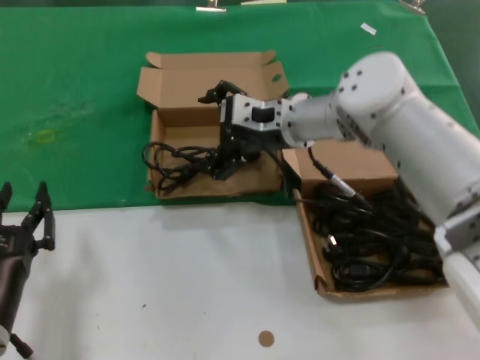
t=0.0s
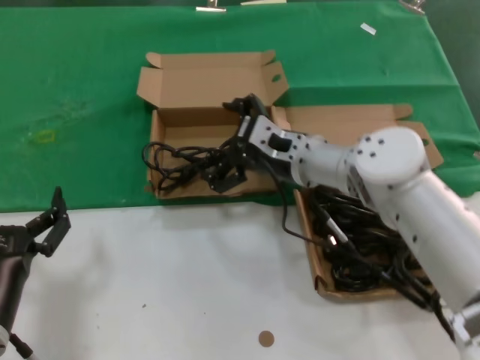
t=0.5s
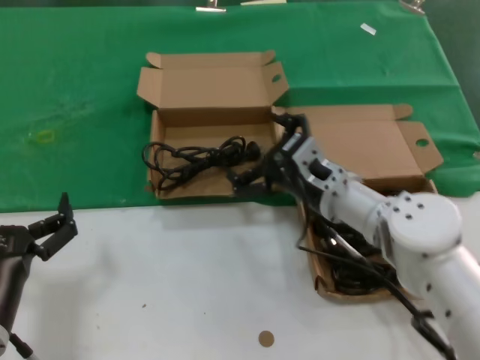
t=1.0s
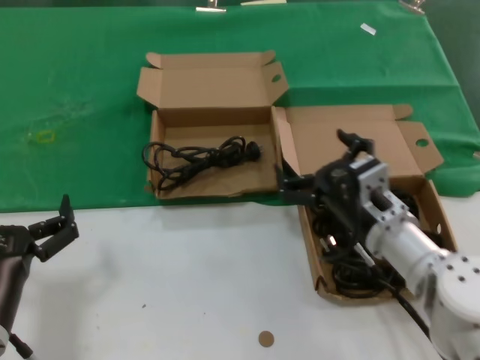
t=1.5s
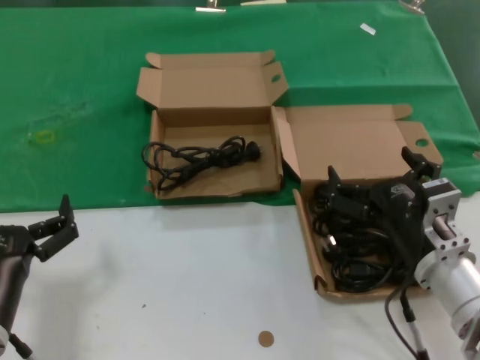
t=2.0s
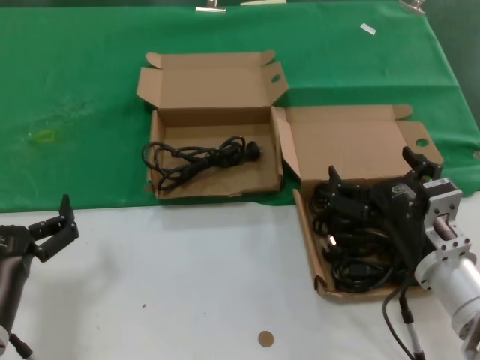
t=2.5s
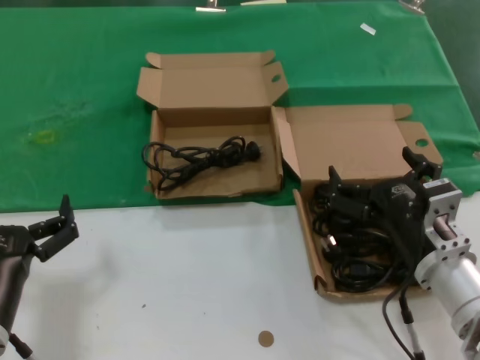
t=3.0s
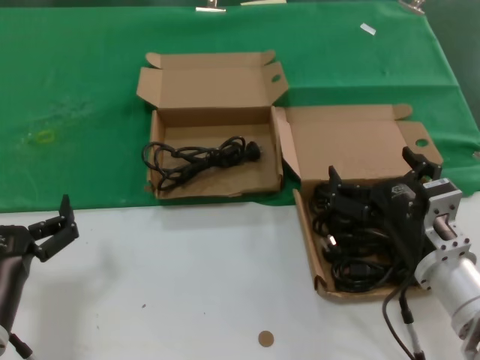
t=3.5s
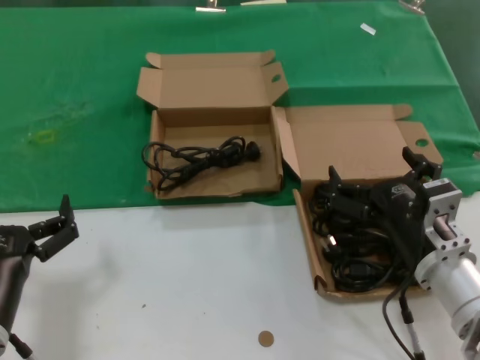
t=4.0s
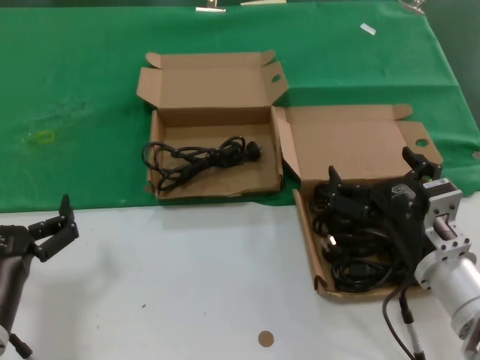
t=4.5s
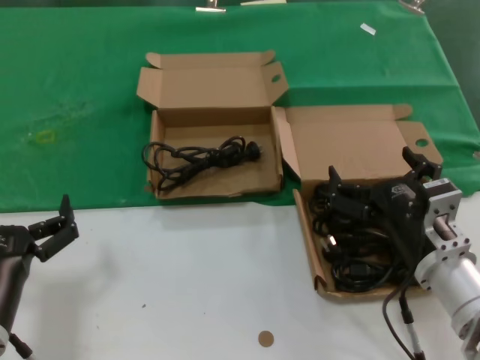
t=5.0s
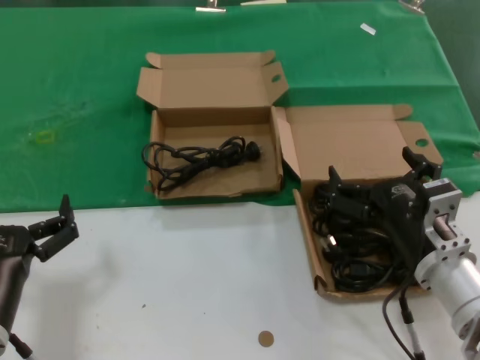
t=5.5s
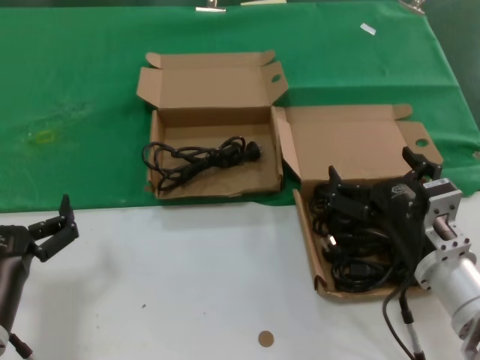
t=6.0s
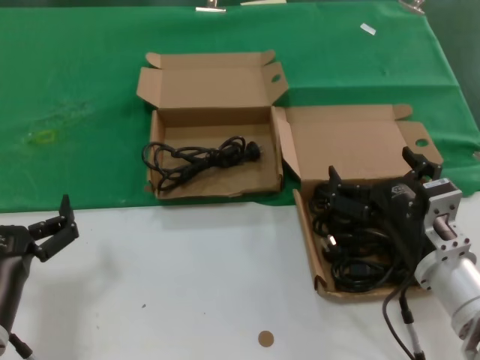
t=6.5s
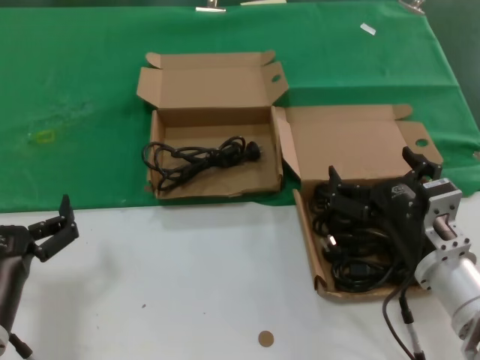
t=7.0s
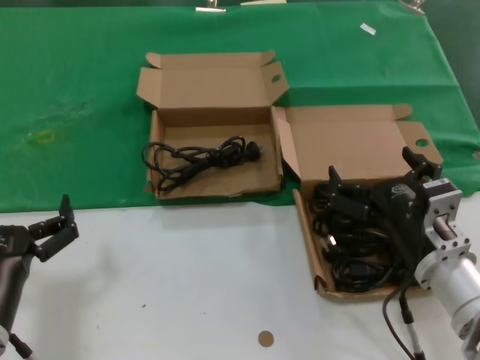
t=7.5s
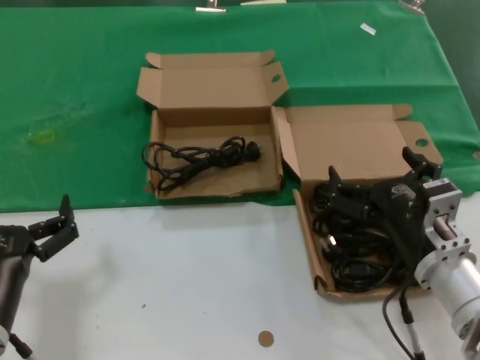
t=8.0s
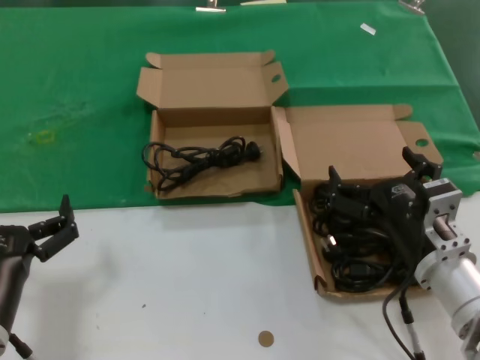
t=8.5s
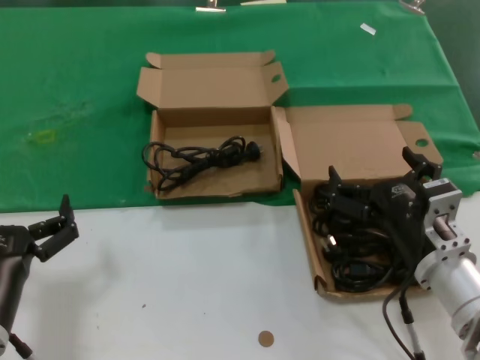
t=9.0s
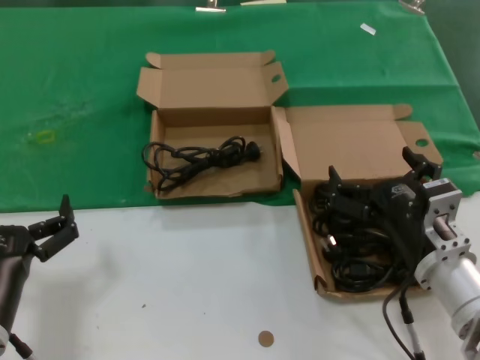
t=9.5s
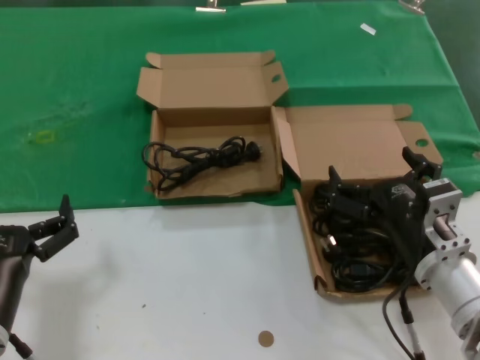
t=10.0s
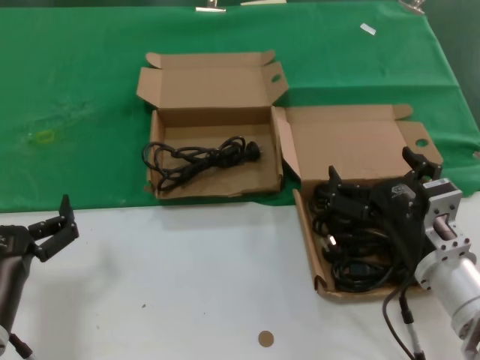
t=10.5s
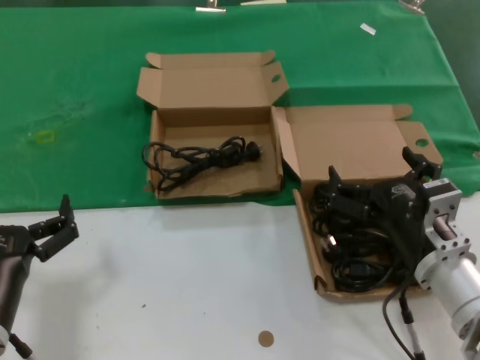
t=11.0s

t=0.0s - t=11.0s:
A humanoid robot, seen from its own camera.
Task of the whole recording: take the parts from the box containing them and put them into an empty box.
t=0.0s - t=2.0s: The right hand heads backward, downward and to the right, covering approximately 30 cm.
t=2.0s - t=11.0s: Neither hand changes place.

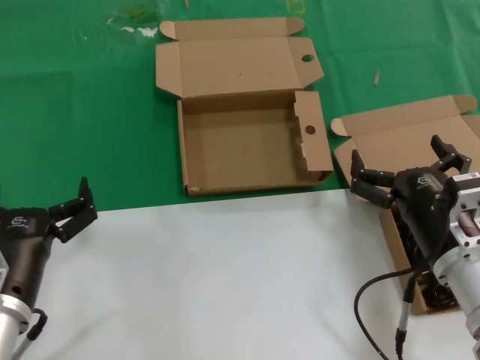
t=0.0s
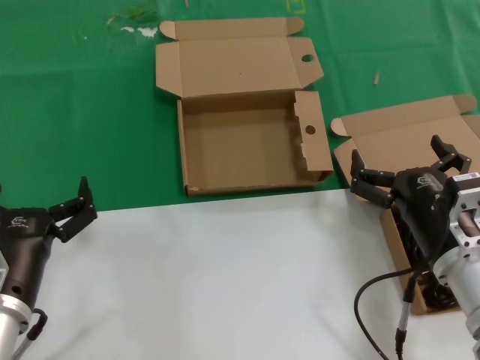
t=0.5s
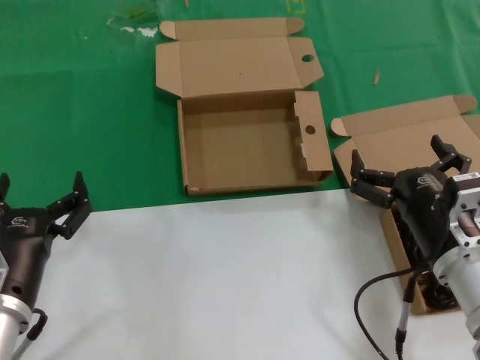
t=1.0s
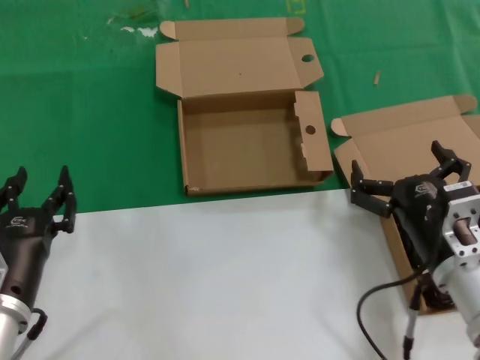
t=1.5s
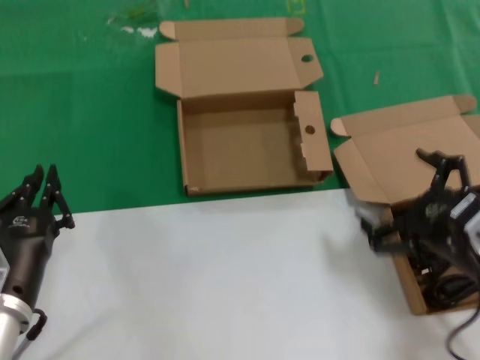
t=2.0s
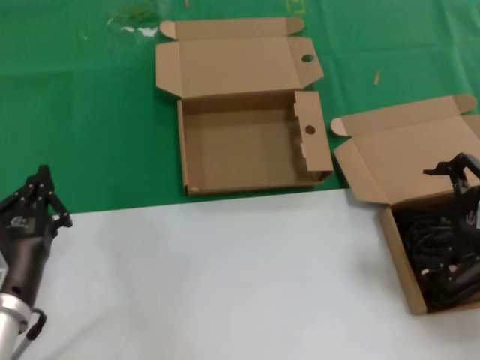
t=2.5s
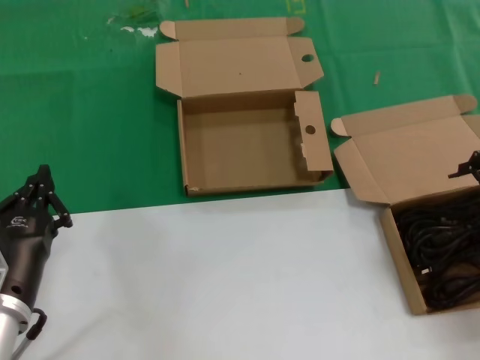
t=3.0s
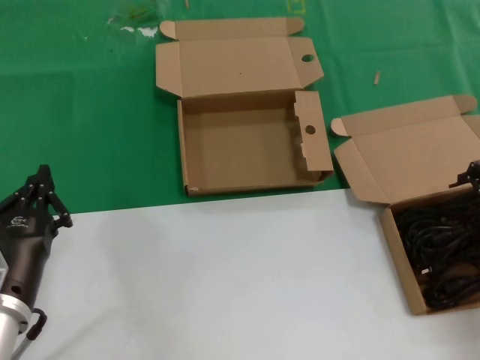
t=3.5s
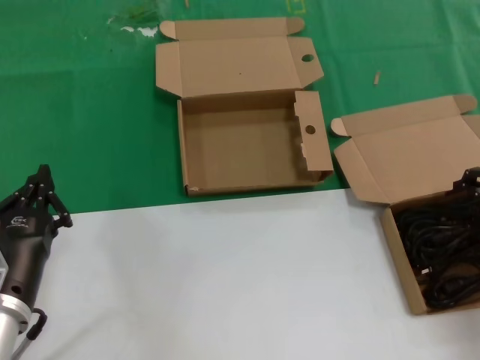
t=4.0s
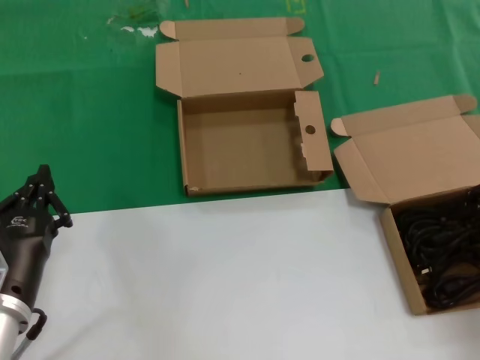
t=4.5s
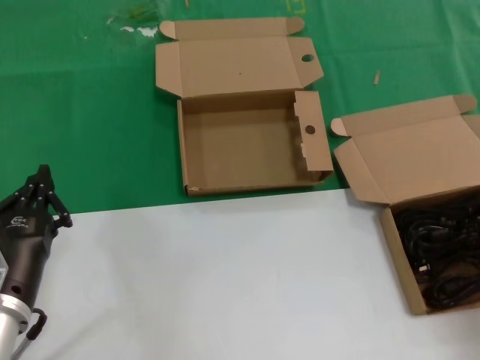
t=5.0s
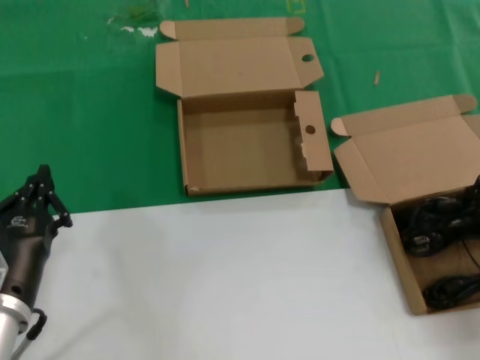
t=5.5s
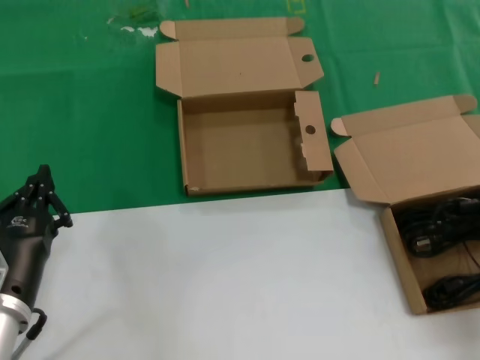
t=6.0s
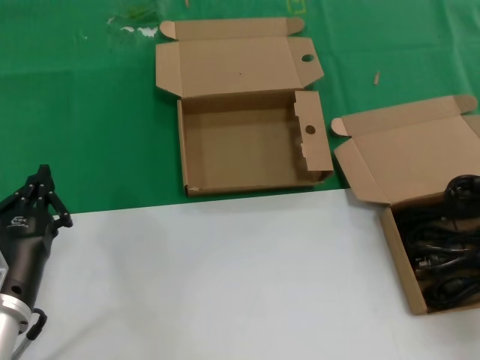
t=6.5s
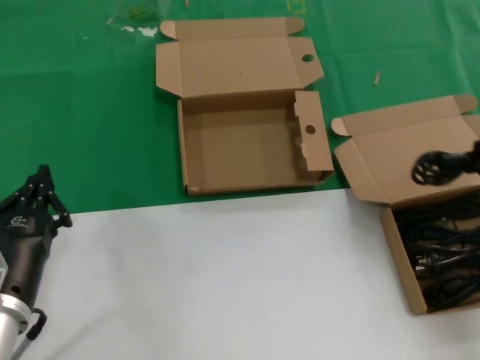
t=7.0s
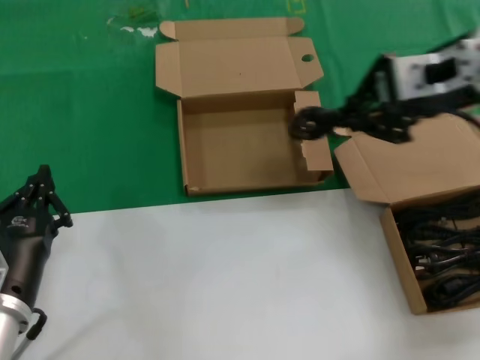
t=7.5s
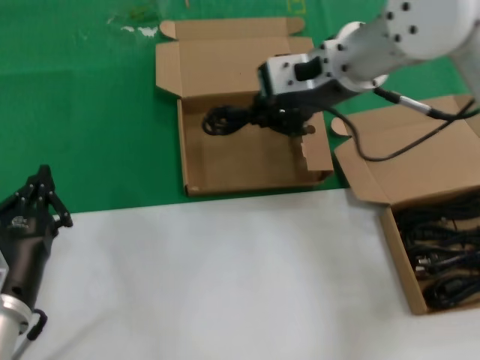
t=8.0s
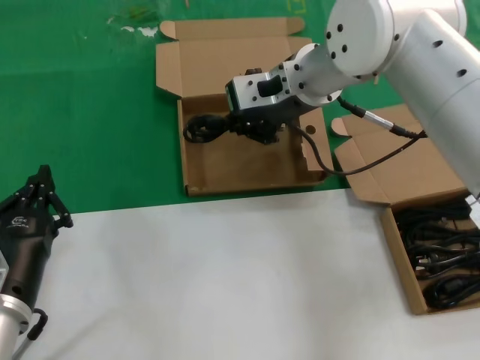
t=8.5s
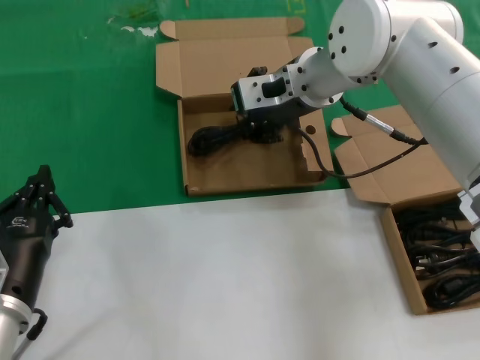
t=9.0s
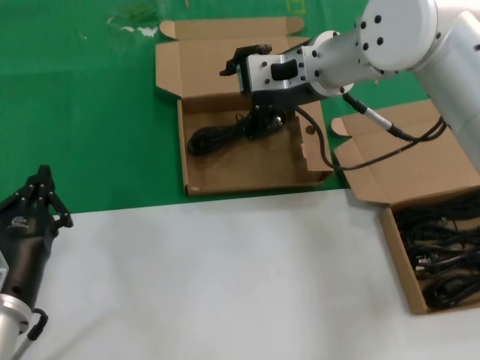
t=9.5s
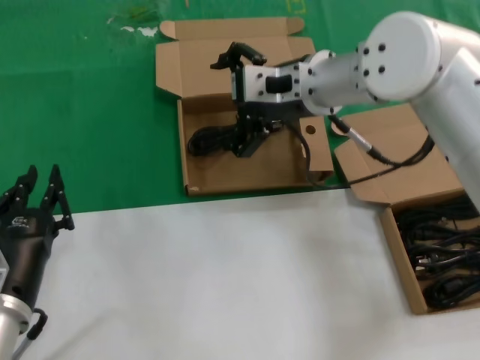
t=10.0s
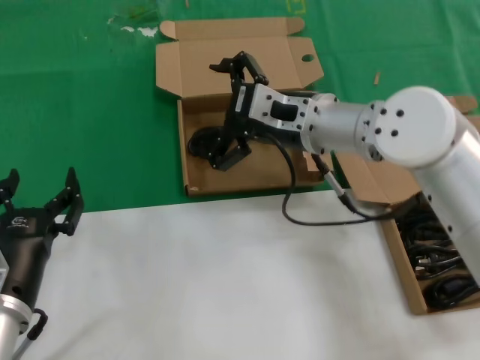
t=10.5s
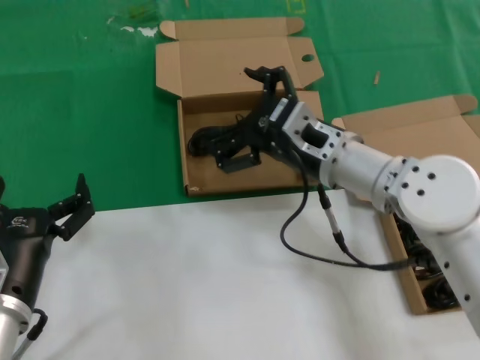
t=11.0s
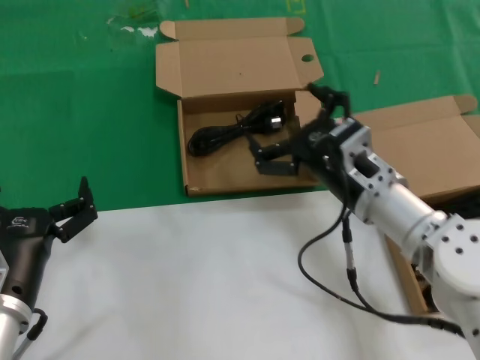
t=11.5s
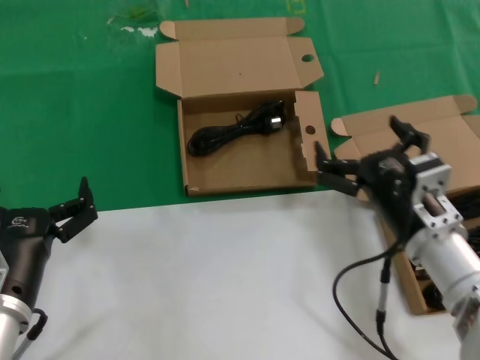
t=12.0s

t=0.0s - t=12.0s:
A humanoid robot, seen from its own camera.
Task of the whole recording: take the parts from the box containing them and put them into an empty box.
Step, t=0.0s - t=5.0s: Grasp the data cable.
Step, t=5.5s - t=9.0s: Place the data cable in the another box.
t=0.0s - t=2.0s: The right hand heads to the right, covering roughly 5 cm.
t=2.0s - t=4.0s: The right hand goes roughly 15 cm upward, to the right and forward.
t=4.0s - t=6.0s: The right hand heads upward, covering about 10 cm.
t=6.0s - t=8.0s: The right hand moves to the left and forward, some 30 cm.
t=8.0s - t=10.0s: The right hand heads downward, covering approximately 5 cm.
t=10.0s - t=12.0s: The right hand moves downward, backward and to the right, about 25 cm.

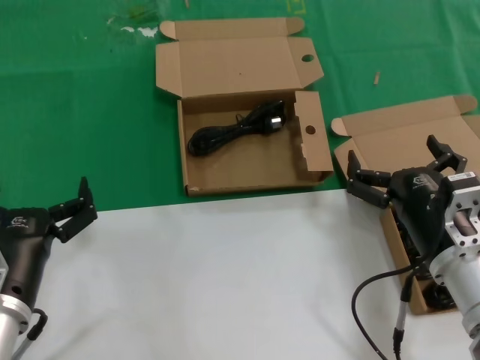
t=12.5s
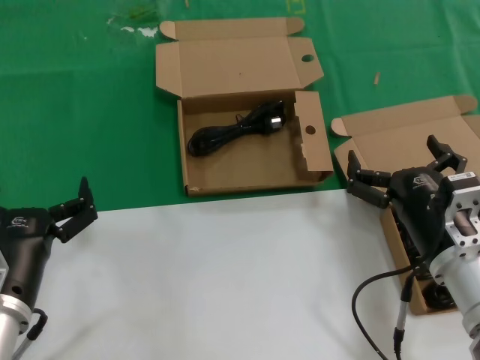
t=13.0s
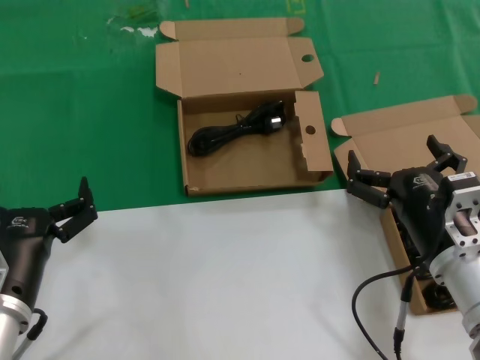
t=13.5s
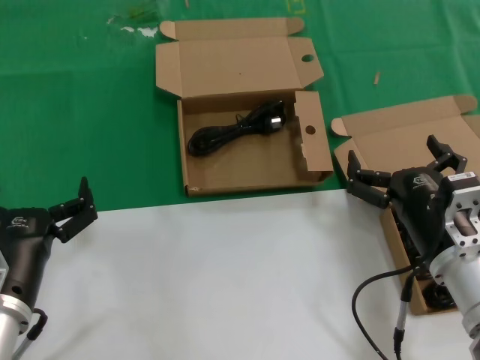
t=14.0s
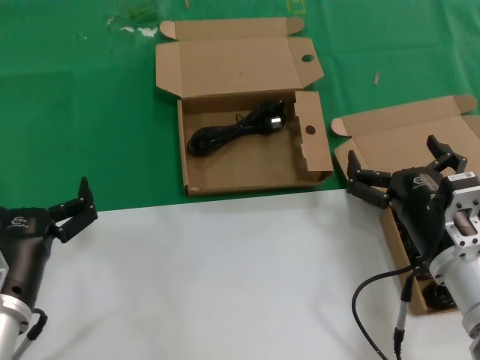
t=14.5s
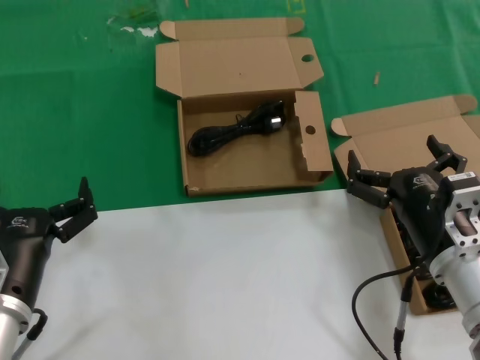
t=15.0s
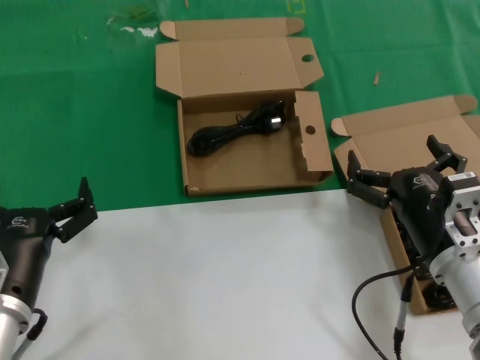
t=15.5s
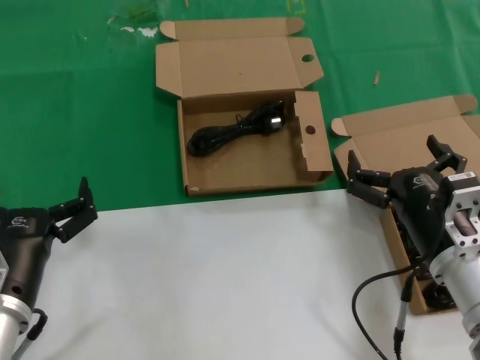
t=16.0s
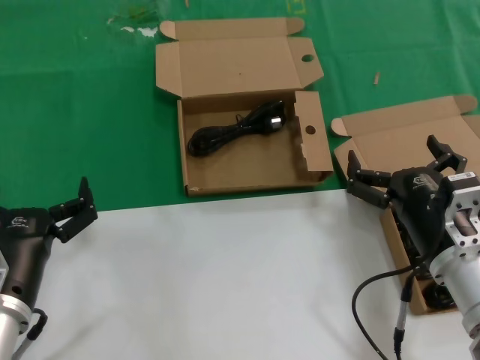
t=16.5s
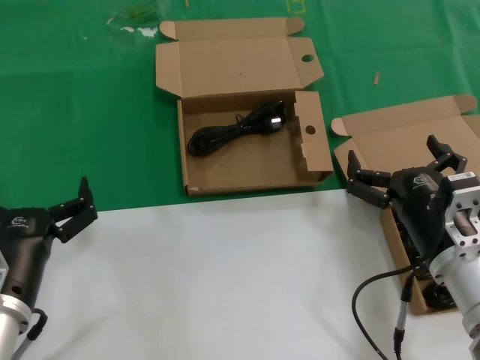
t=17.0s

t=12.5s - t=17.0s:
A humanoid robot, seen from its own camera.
Task of the whole recording: take the parts from the box containing them and put them into an empty box.
t=12.5s - t=17.0s: The two hands keep their place.
